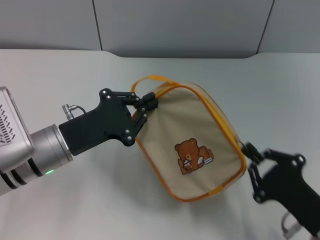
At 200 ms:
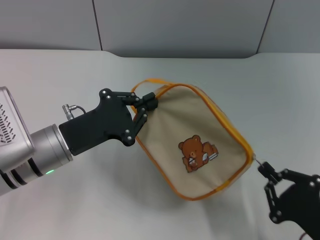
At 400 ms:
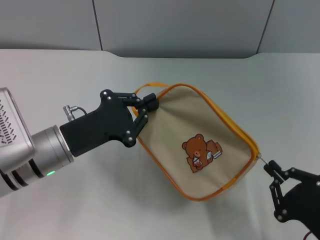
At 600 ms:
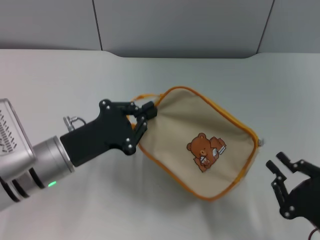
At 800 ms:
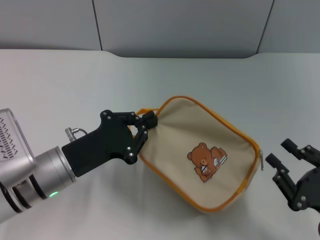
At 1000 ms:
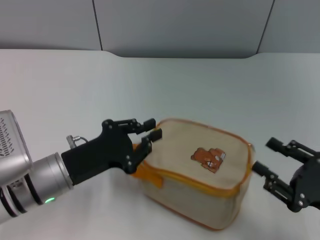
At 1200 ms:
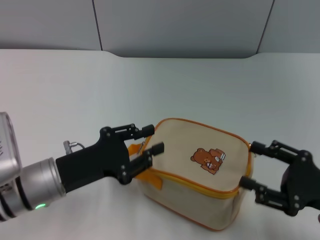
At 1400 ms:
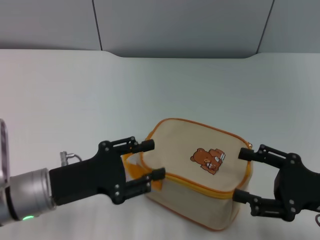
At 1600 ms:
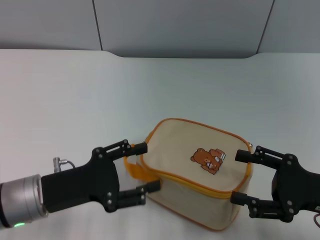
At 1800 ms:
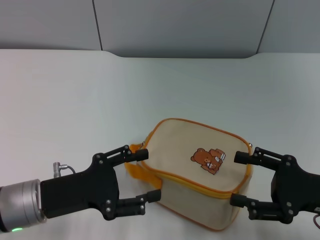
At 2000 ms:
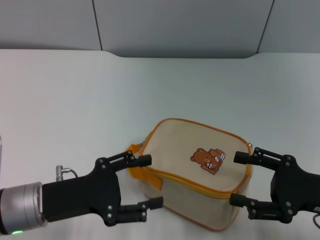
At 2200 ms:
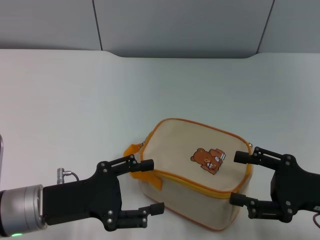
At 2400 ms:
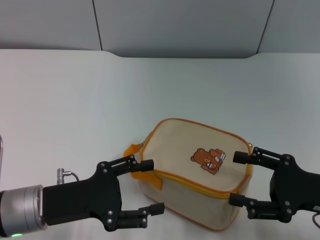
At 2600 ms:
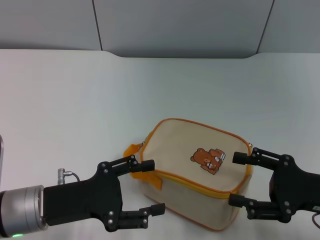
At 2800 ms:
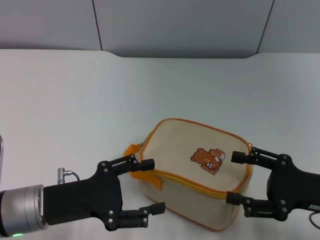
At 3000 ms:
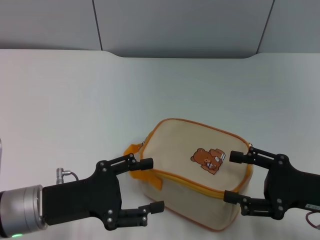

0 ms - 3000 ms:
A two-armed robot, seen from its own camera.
0 ms - 1600 ms: The right gripper is displaced upward and forward by approximately 10 cm, and opens, while the left gripper is displaced backward by about 5 cm, and opens up.
1600 ms - 3000 ms: The grippers move only a little.

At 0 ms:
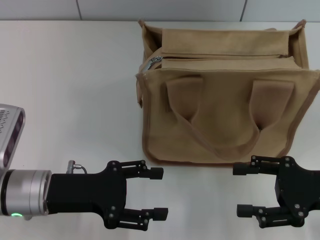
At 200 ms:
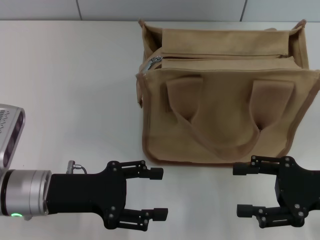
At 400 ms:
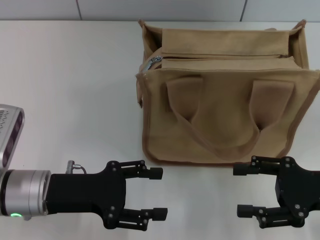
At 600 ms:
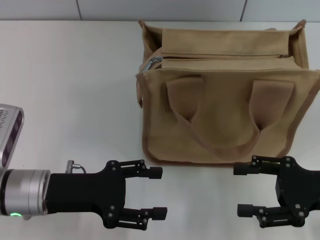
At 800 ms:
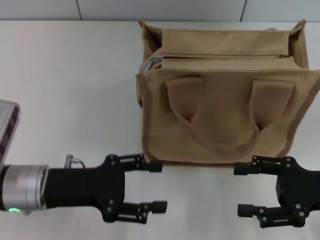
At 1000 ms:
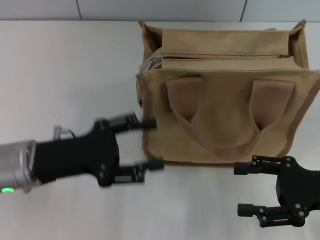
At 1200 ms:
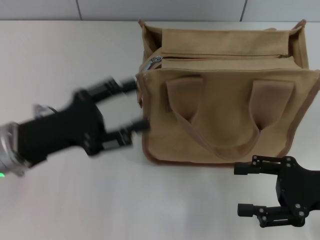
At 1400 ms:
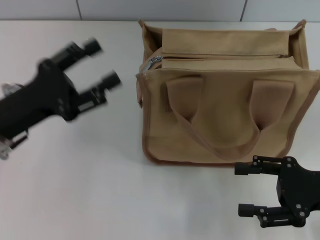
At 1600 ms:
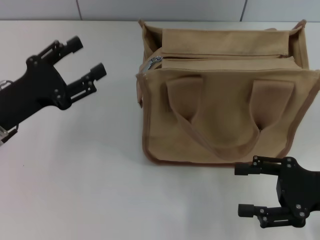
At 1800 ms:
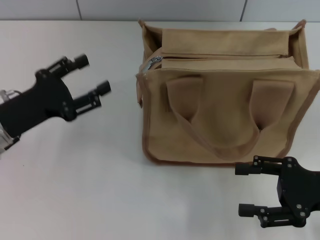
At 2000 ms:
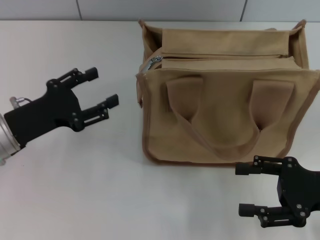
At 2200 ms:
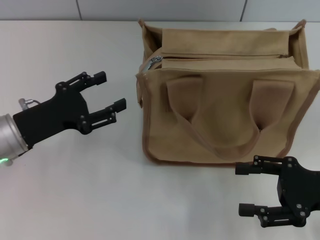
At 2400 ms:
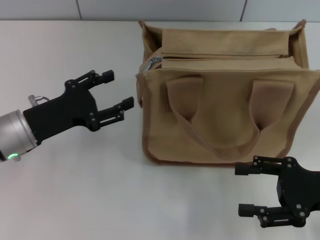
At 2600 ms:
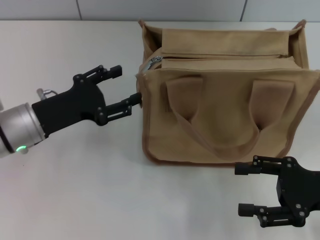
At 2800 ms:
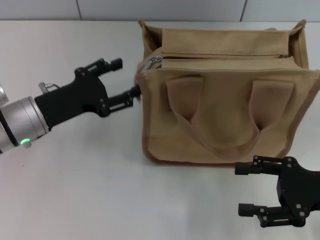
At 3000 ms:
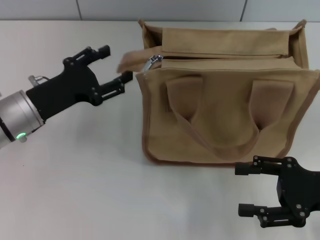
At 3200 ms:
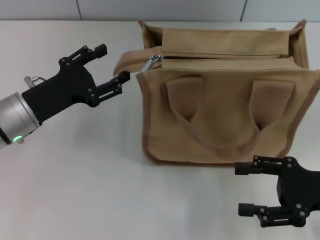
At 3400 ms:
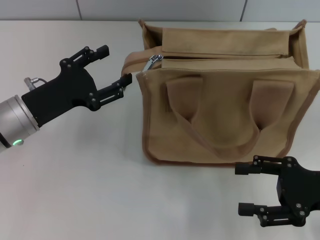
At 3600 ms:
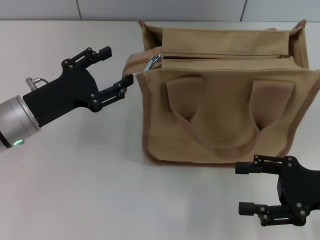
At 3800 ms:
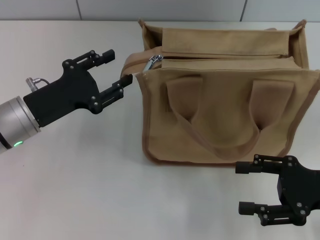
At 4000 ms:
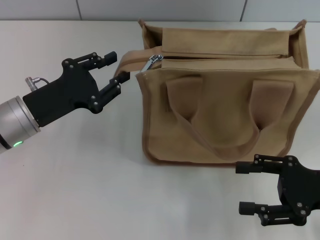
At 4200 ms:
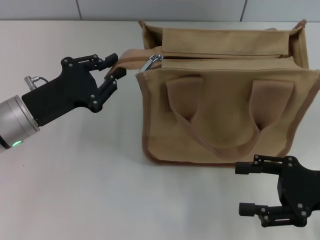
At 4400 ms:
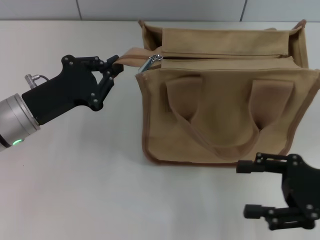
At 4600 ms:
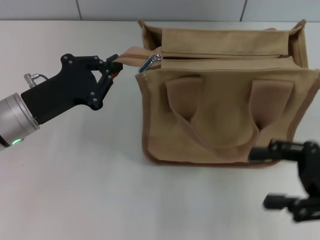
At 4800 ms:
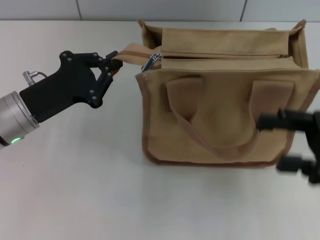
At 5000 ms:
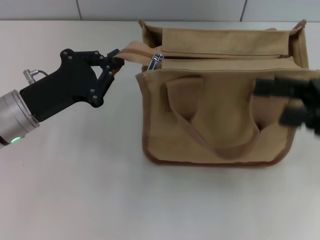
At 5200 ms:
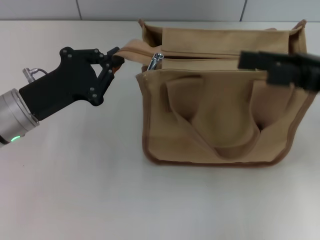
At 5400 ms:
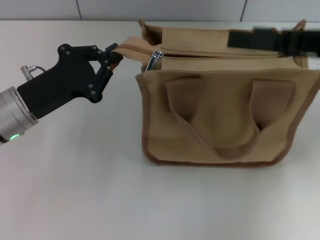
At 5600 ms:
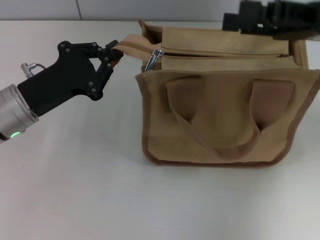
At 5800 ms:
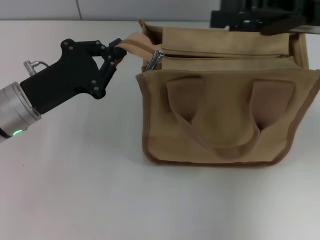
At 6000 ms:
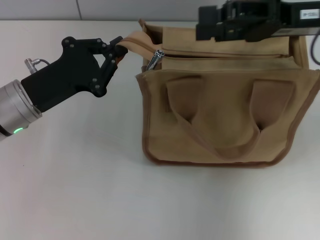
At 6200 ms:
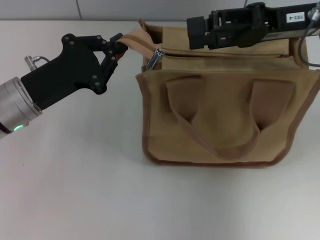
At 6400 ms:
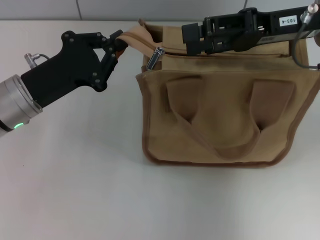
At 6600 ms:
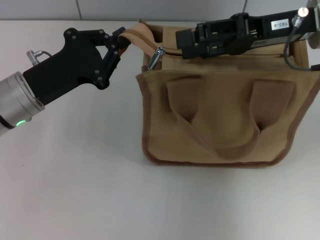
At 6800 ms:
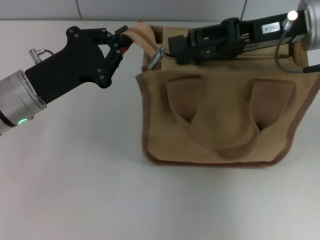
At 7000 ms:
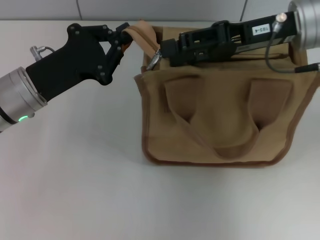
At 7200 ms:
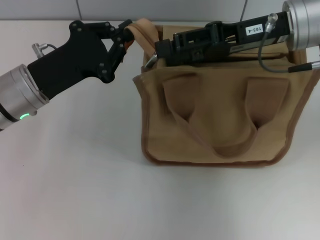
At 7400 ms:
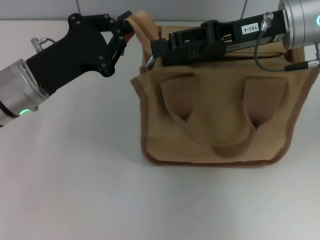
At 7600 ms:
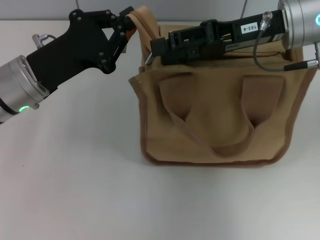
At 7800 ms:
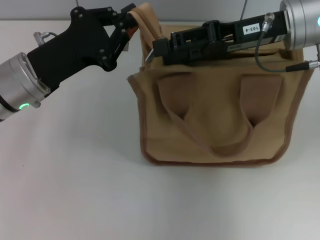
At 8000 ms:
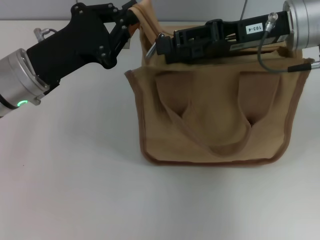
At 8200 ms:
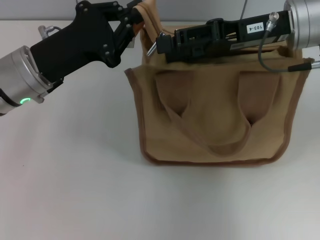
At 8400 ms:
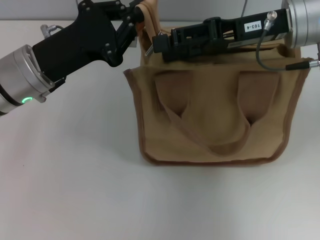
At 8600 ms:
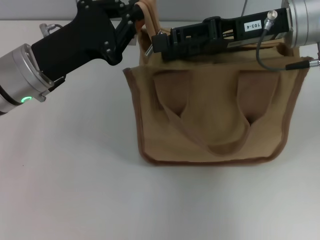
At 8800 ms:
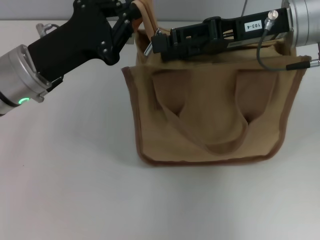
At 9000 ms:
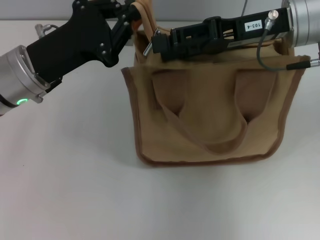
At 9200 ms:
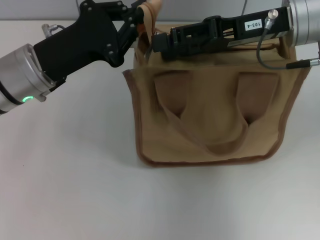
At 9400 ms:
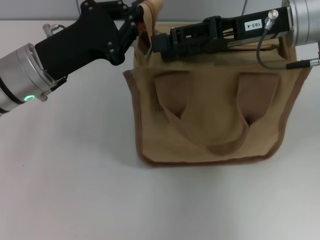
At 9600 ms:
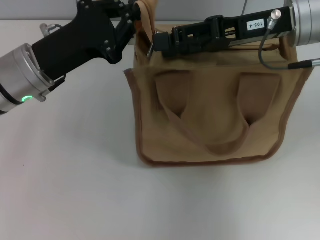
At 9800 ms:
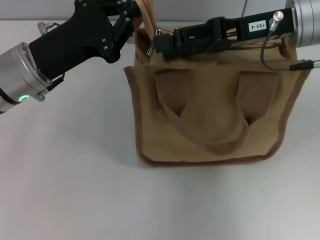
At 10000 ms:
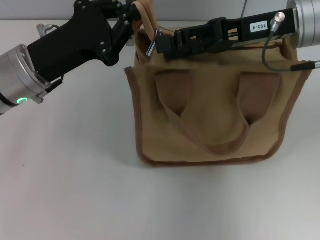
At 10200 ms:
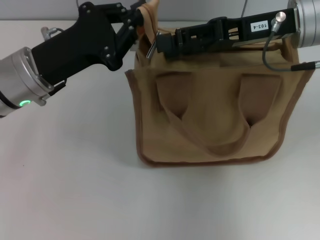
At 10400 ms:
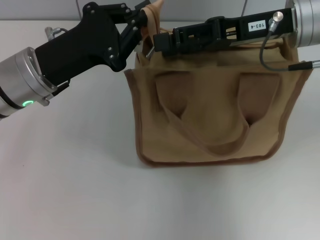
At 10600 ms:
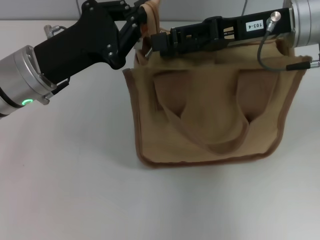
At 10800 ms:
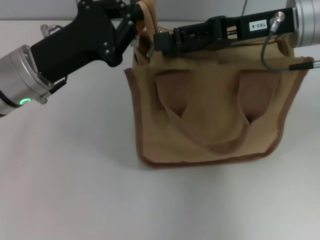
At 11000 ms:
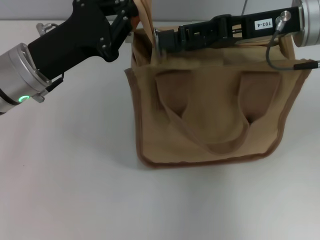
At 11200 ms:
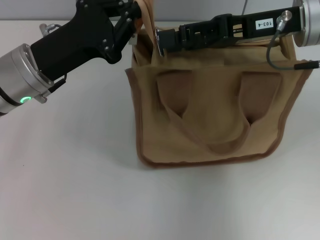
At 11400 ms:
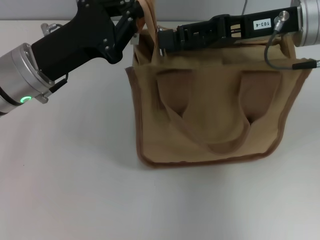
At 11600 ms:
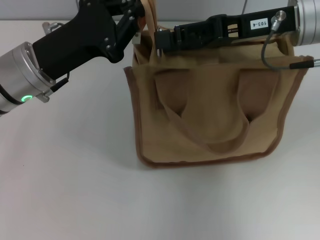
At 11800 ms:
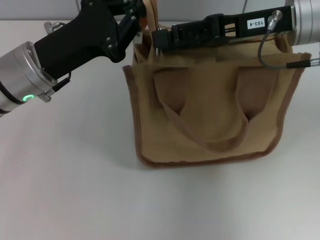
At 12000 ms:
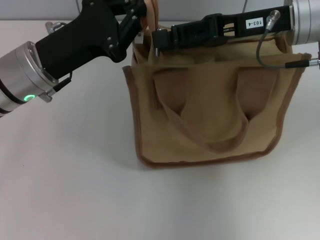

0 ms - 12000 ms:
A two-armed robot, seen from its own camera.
0 ms - 1600 ms: The left gripper moves to the left, roughly 5 cm.
1600 ms - 3000 ms: The left gripper changes place by approximately 5 cm.
3000 ms - 4400 ms: The left gripper closes up.
4400 ms - 6000 ms: The right gripper shifts roughly 20 cm forward, upward and to the left.
6000 ms - 7600 ms: The right gripper travels to the left by about 5 cm.
7600 ms - 9000 ms: The grippers make only small movements.
9000 ms - 10400 ms: Both grippers stay put.
10400 ms - 12000 ms: The two grippers keep their place.

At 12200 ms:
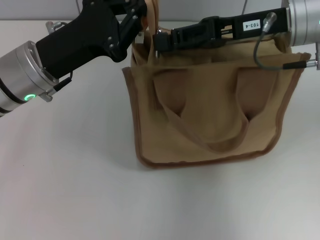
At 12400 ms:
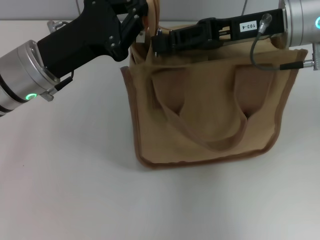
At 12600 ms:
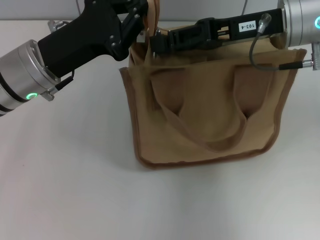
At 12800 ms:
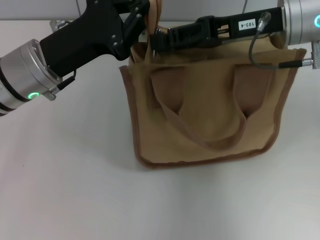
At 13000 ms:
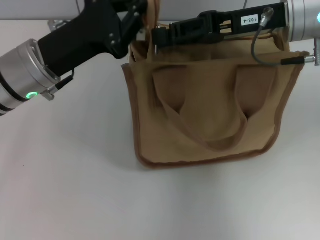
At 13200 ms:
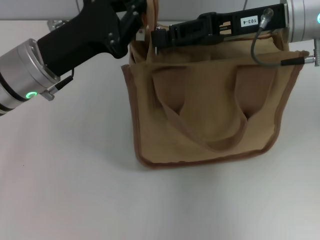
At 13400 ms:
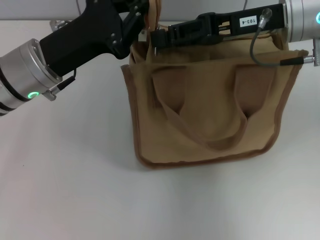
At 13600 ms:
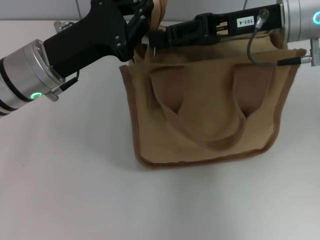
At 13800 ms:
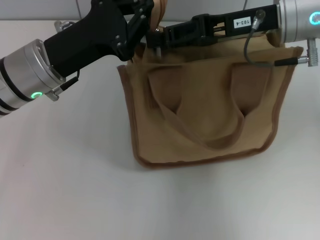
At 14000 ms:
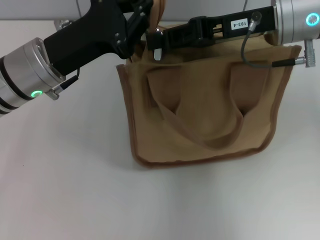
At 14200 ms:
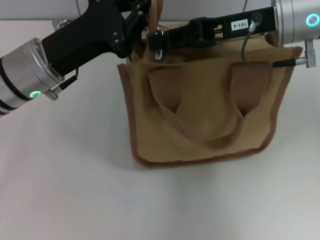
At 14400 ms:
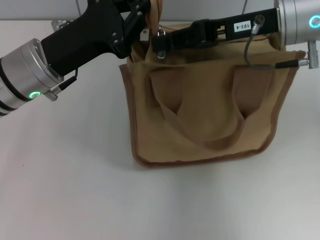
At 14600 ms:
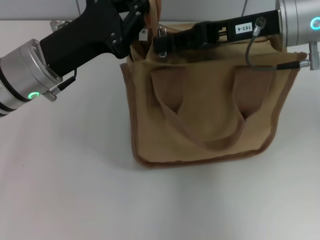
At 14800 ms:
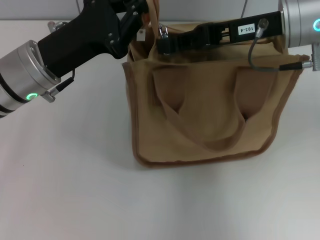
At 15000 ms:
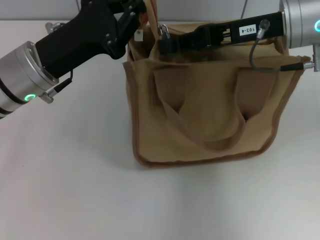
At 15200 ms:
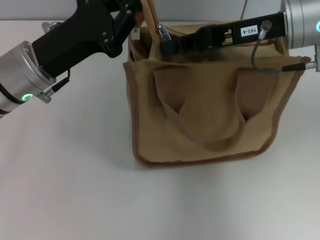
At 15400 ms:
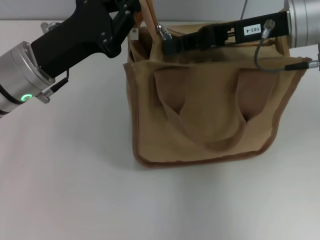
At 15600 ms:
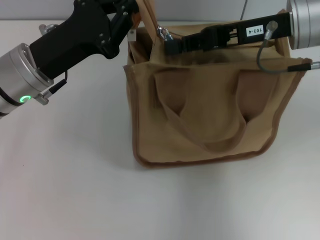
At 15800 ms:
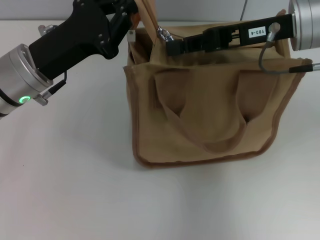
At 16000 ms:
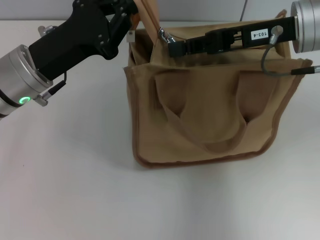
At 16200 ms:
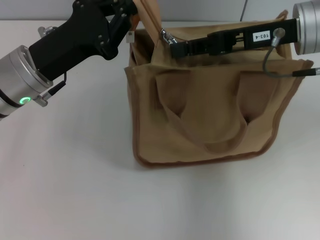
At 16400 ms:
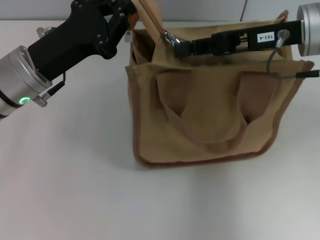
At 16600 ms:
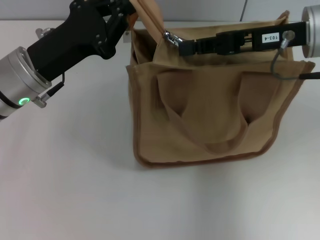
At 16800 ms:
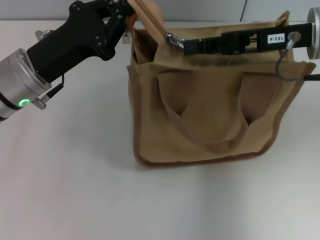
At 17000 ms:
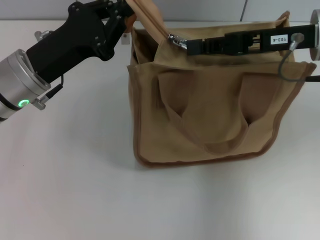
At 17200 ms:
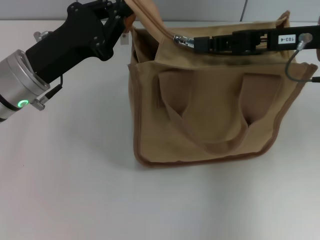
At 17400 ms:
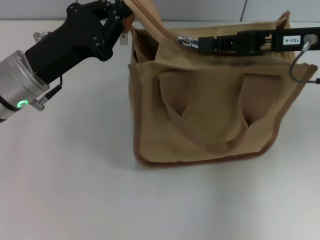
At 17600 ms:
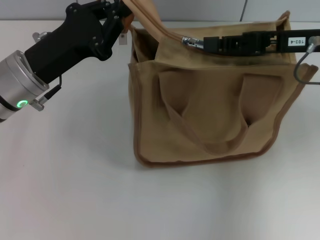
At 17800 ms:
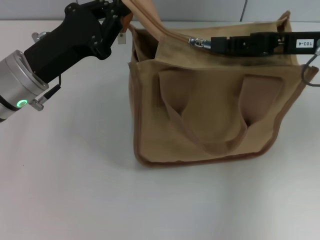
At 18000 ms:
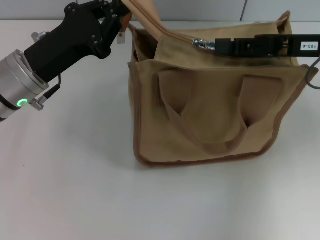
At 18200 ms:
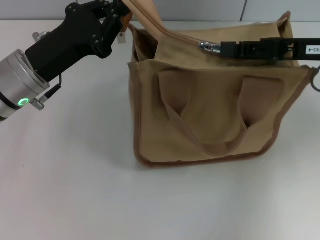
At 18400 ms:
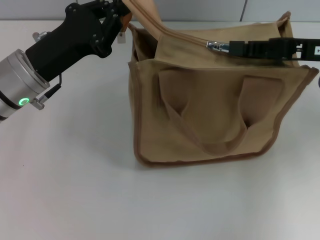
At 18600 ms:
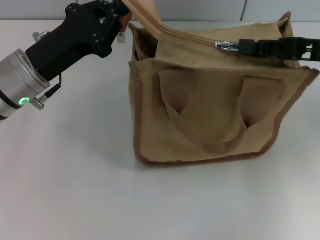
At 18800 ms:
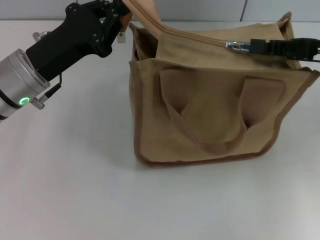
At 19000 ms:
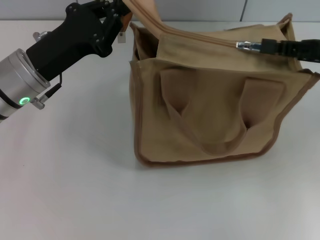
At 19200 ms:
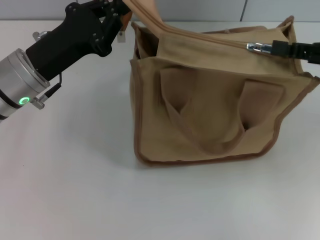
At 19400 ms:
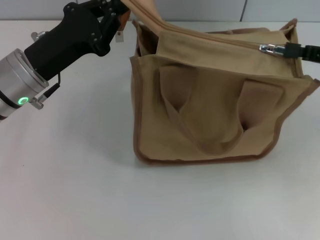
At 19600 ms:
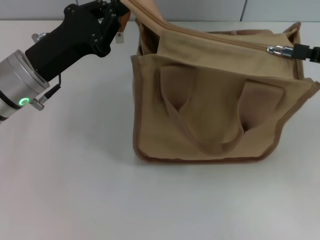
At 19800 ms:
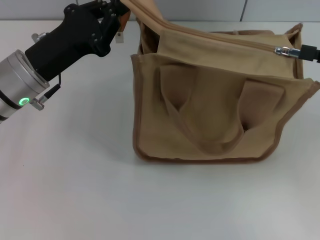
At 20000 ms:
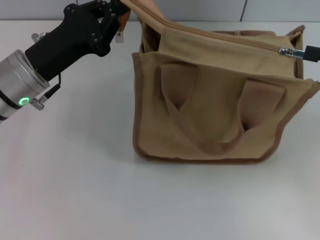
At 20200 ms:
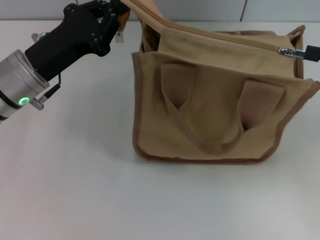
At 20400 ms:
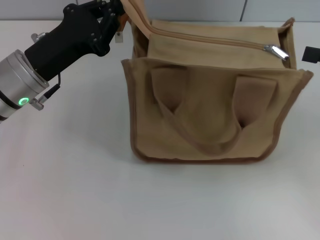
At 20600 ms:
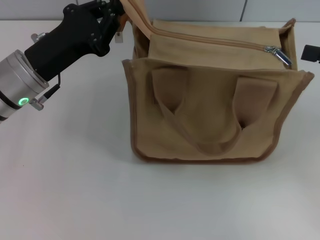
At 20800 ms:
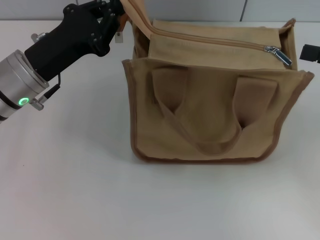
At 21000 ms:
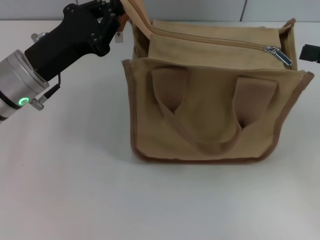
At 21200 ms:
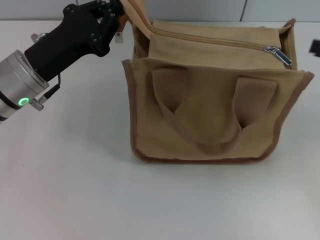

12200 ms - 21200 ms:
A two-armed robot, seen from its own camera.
Step, 12200 ms - 20400 ms: Pull up the zipper with your right hand.
12200 ms - 13800 ms: Both grippers stay put.
13800 ms - 15200 ms: The right gripper closes.
15200 ms - 16600 ms: There are only small adjustments of the grippers.
16600 ms - 18200 ms: The right gripper shifts approximately 5 cm to the right.
18200 ms - 19800 ms: The right gripper is displaced to the right by about 10 cm.
19800 ms - 21200 ms: The right gripper opens.
